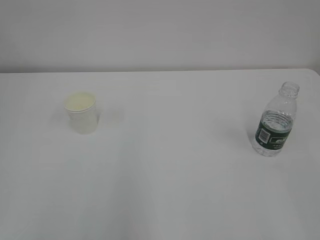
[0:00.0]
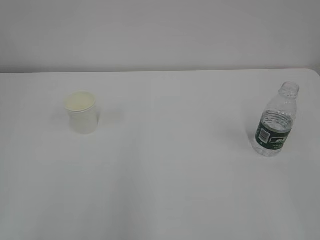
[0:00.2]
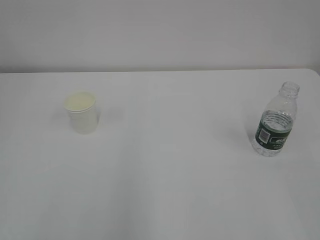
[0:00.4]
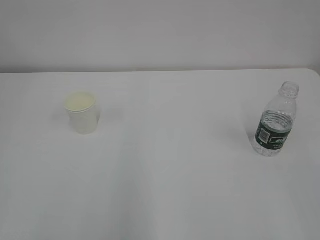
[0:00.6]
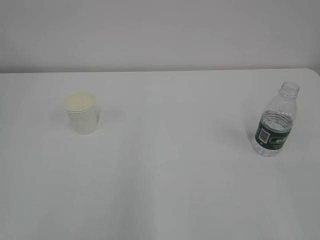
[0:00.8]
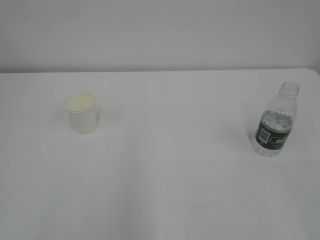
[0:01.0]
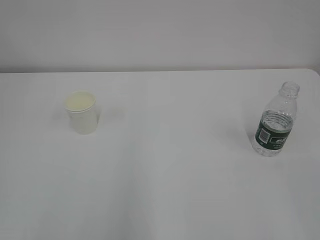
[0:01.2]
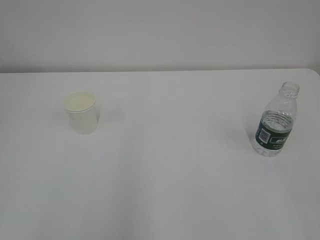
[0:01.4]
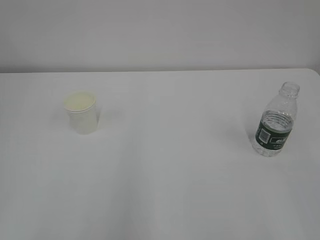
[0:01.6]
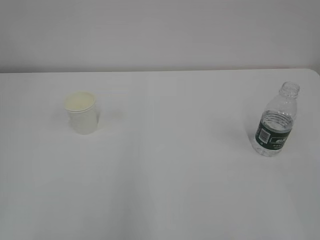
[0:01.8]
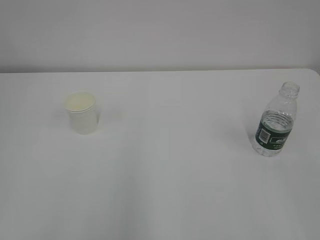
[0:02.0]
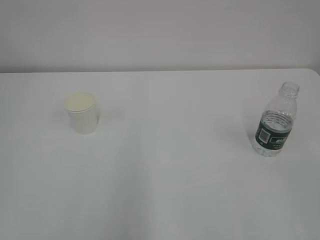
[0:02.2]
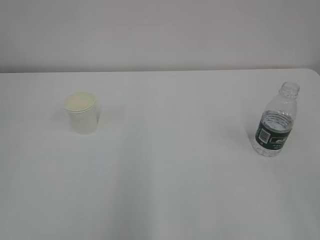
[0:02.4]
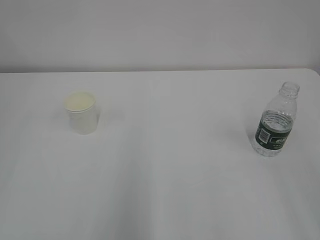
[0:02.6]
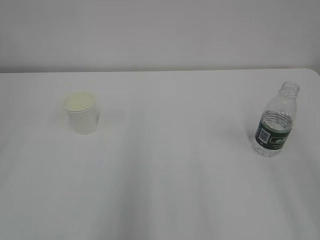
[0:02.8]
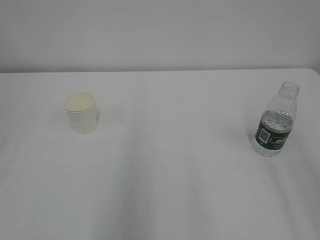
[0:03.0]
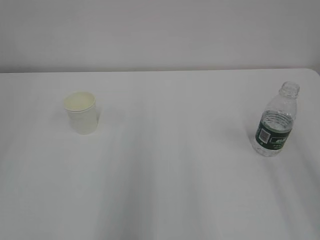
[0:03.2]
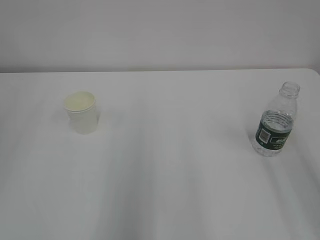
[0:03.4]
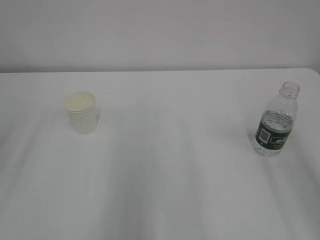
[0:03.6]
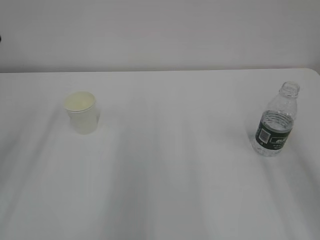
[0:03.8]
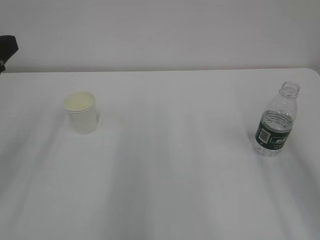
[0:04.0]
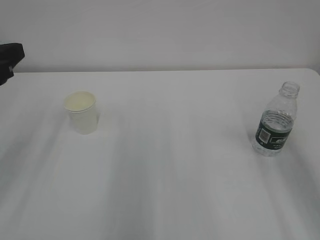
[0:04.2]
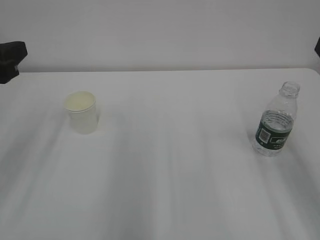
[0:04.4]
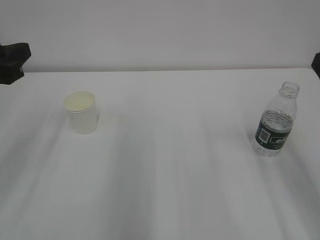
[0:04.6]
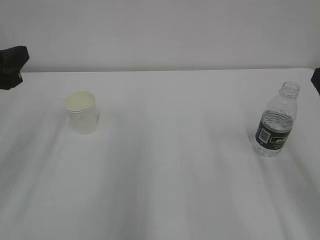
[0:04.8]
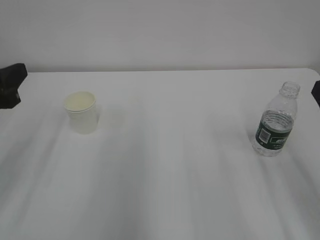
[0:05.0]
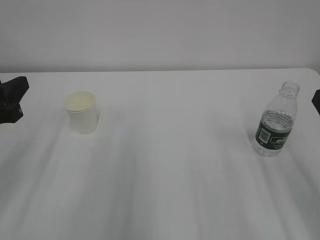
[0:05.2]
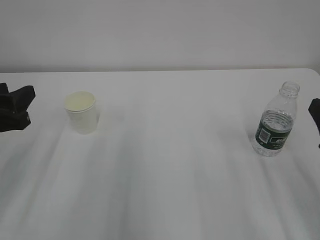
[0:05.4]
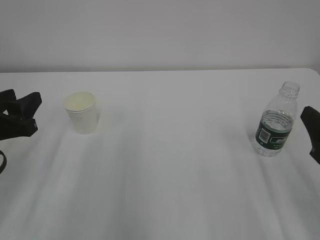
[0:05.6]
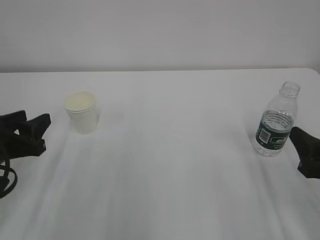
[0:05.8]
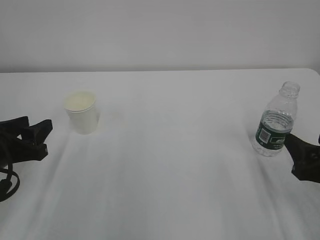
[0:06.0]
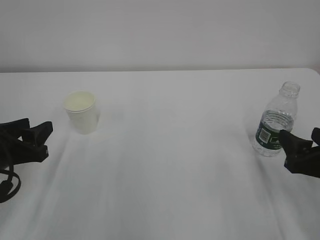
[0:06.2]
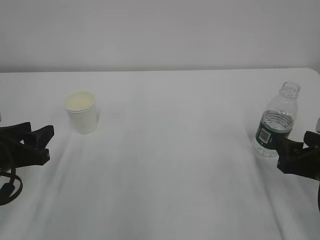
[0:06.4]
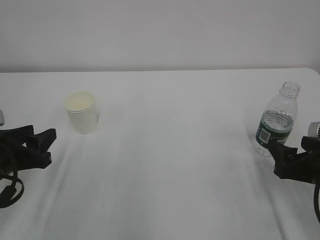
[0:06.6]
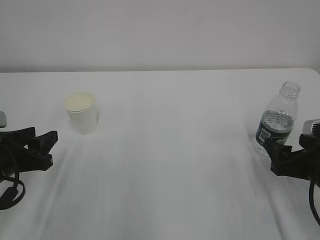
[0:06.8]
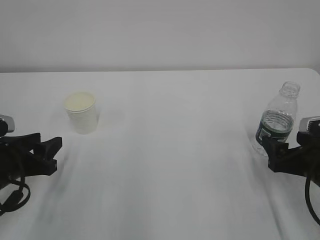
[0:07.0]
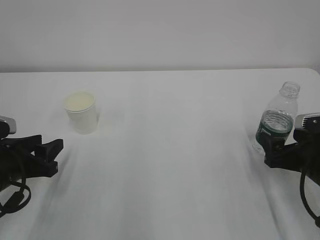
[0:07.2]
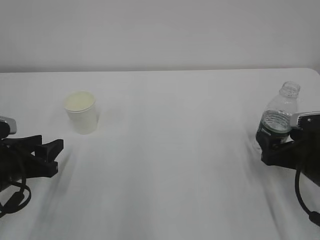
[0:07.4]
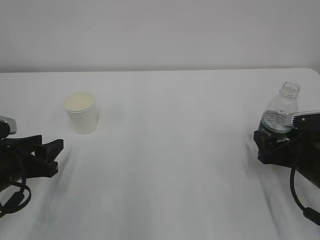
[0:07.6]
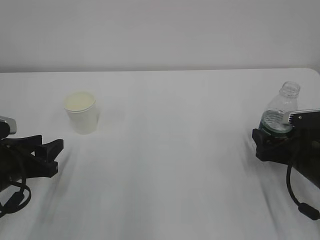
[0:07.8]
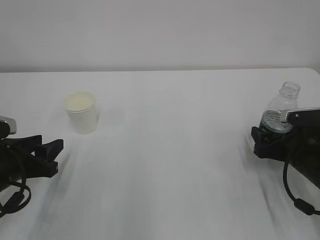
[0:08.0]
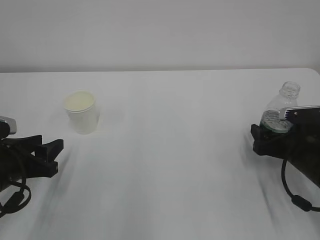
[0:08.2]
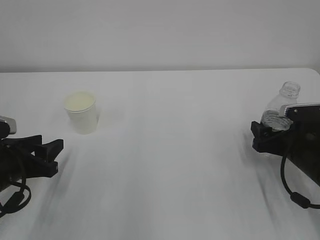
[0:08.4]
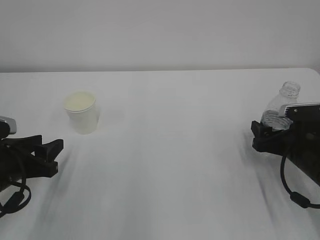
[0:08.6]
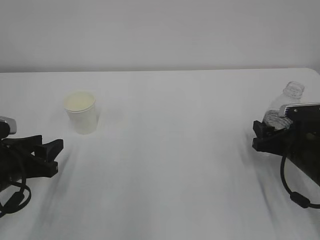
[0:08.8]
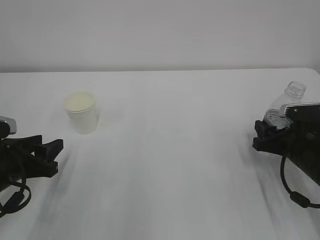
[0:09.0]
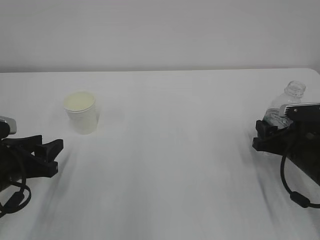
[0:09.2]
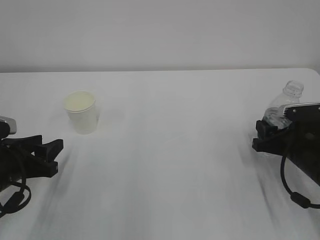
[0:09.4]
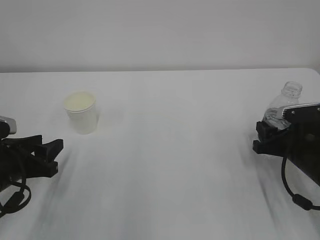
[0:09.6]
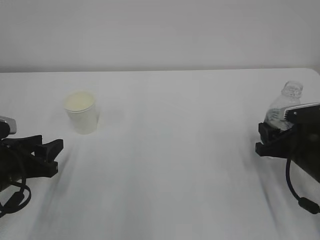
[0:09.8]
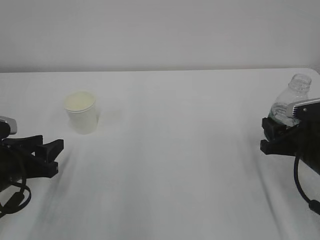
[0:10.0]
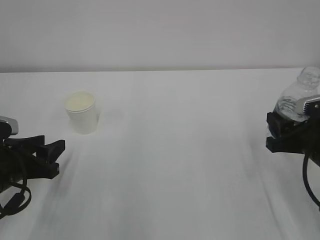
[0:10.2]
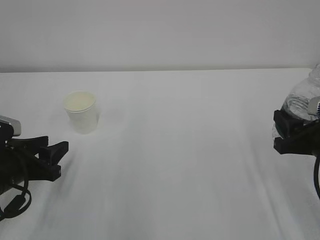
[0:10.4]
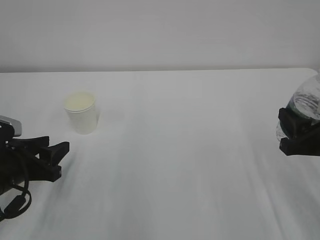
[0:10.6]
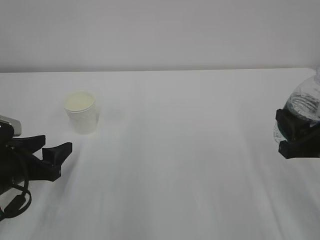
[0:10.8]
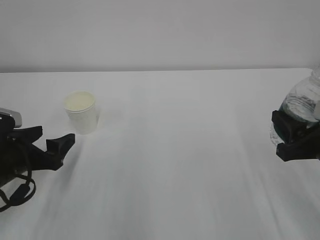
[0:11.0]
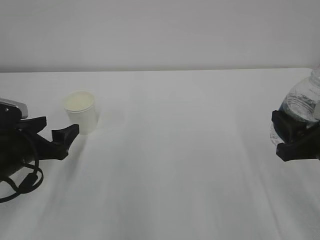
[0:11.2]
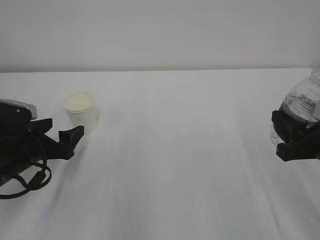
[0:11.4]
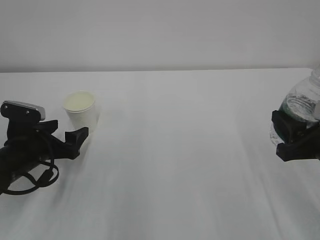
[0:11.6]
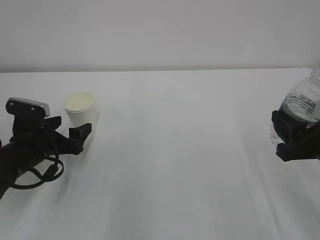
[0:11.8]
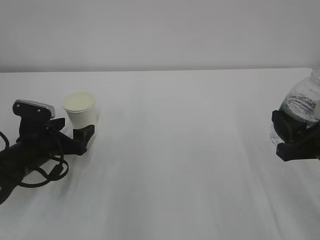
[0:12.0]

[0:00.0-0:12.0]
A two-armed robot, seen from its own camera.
0:03.0 to 0:04.4: The left gripper moves forward, downward and to the right, some 15 cm.
0:04.4 to 0:06.0: The grippers both shift downward by roughly 15 cm.
0:06.0 to 0:07.6: The right gripper travels forward and downward by some 10 cm.
0:07.6 to 0:09.0: The right gripper closes up.
0:09.0 to 0:10.4: The right gripper travels upward and backward by approximately 10 cm.
0:10.4 to 0:12.0: The left gripper heads forward, covering some 10 cm, and opens.

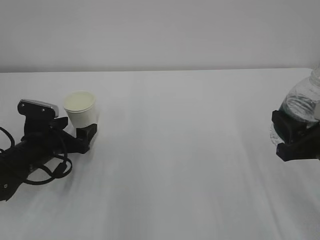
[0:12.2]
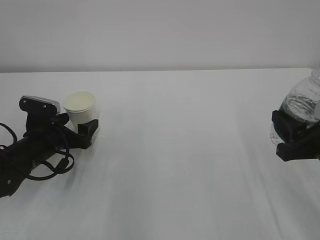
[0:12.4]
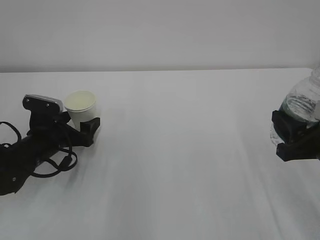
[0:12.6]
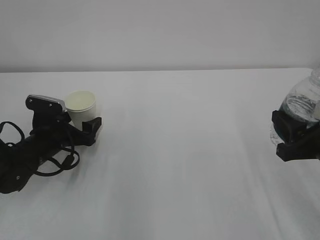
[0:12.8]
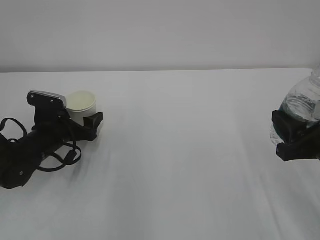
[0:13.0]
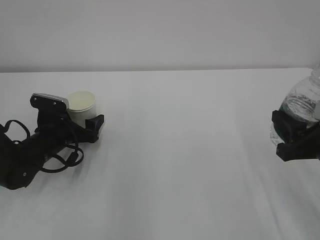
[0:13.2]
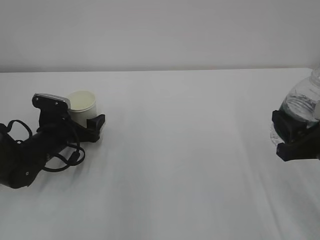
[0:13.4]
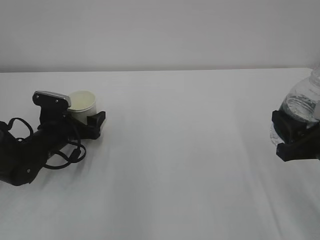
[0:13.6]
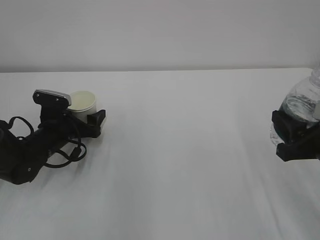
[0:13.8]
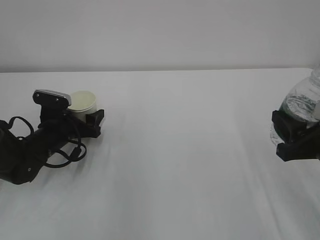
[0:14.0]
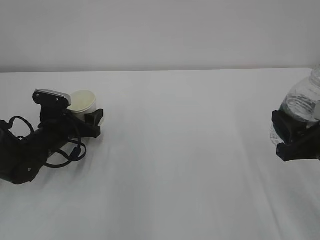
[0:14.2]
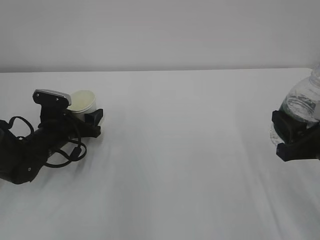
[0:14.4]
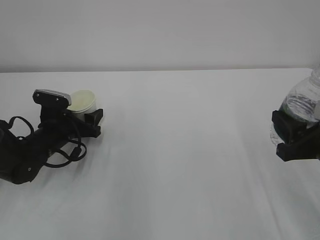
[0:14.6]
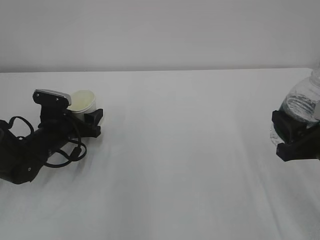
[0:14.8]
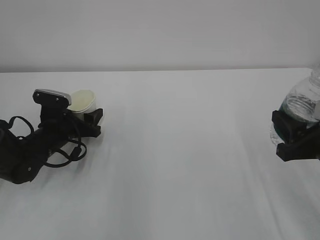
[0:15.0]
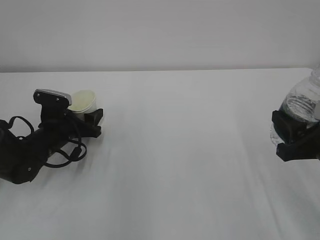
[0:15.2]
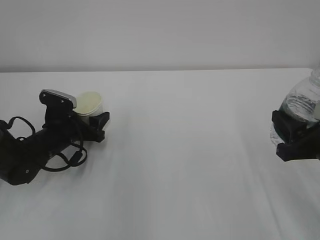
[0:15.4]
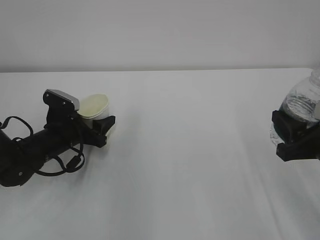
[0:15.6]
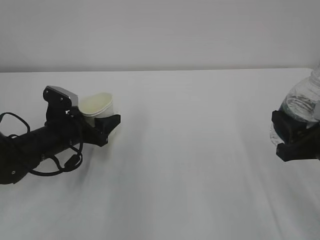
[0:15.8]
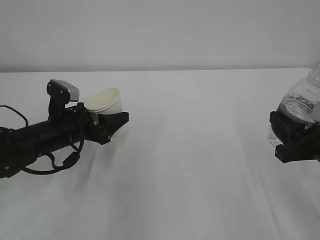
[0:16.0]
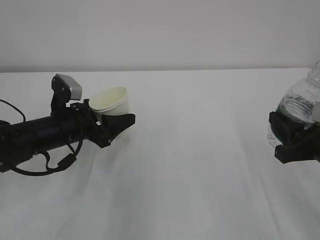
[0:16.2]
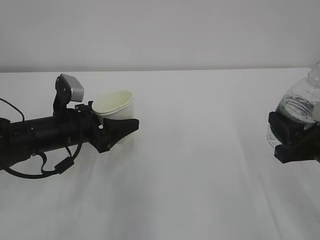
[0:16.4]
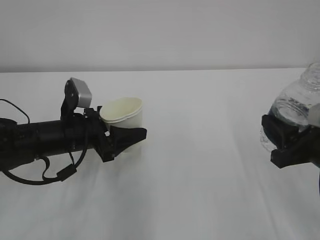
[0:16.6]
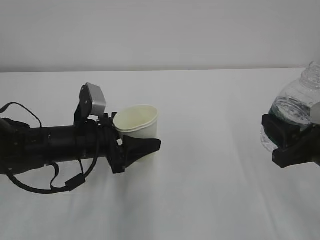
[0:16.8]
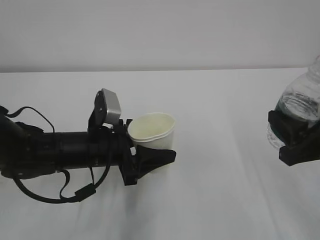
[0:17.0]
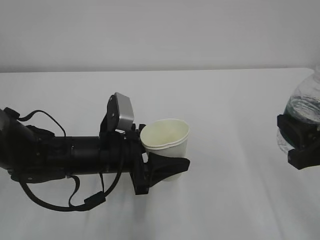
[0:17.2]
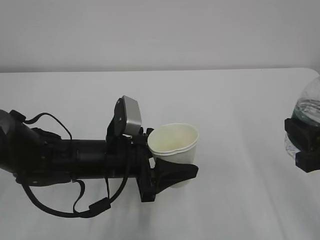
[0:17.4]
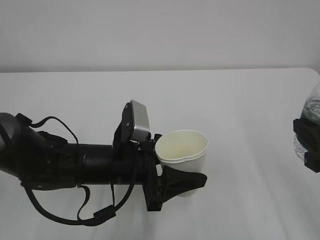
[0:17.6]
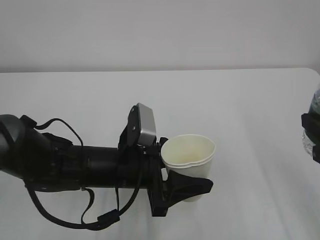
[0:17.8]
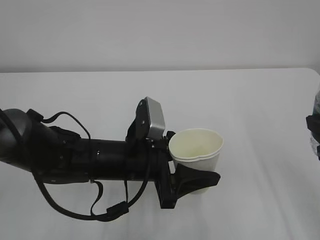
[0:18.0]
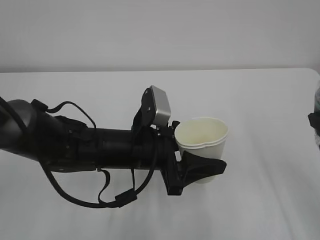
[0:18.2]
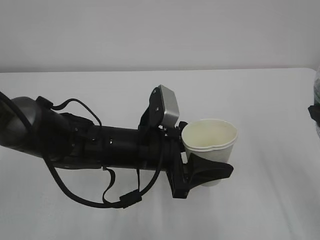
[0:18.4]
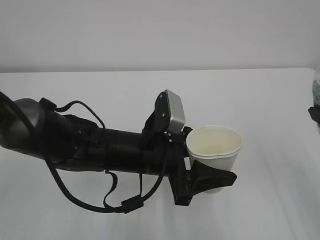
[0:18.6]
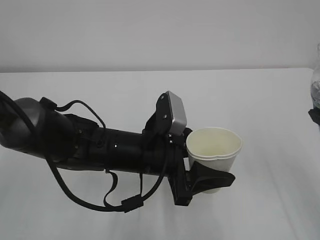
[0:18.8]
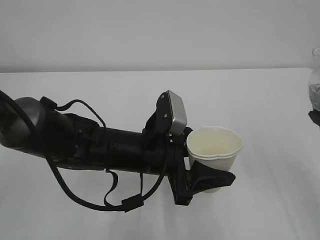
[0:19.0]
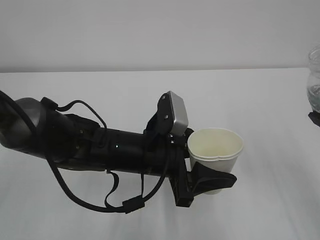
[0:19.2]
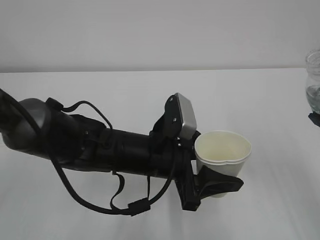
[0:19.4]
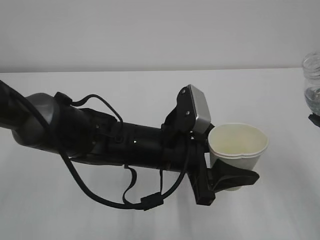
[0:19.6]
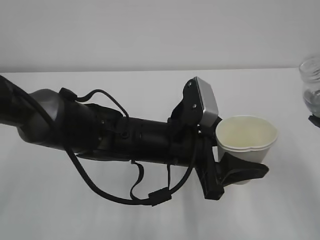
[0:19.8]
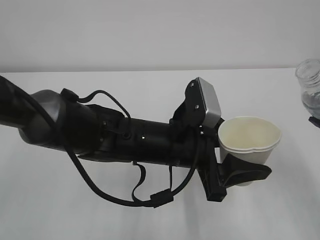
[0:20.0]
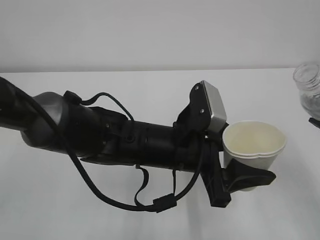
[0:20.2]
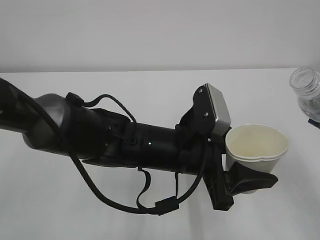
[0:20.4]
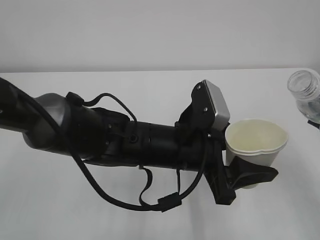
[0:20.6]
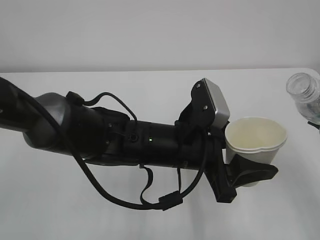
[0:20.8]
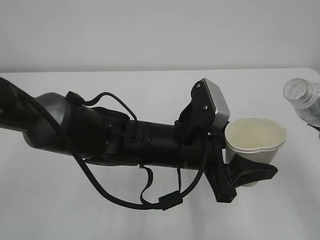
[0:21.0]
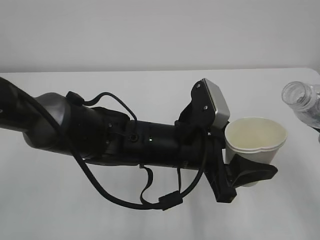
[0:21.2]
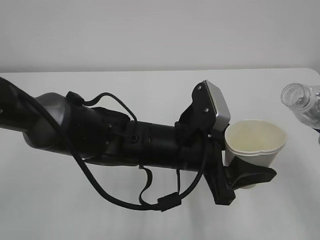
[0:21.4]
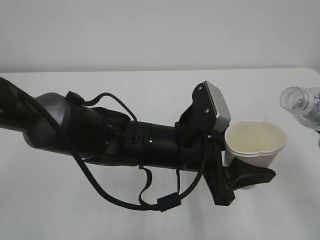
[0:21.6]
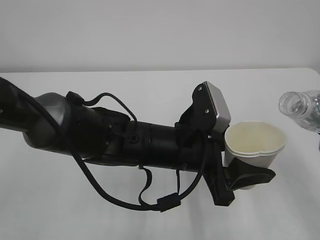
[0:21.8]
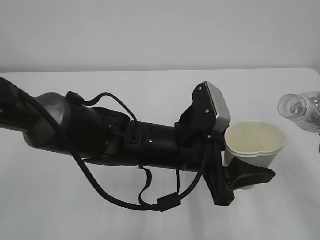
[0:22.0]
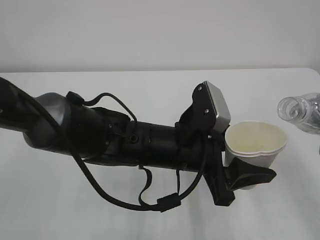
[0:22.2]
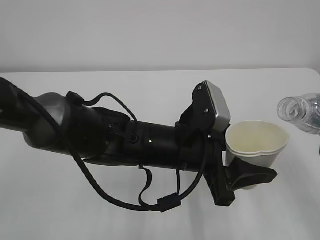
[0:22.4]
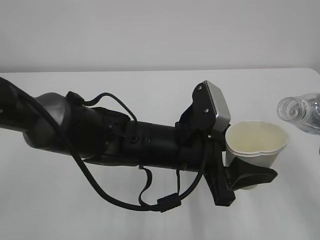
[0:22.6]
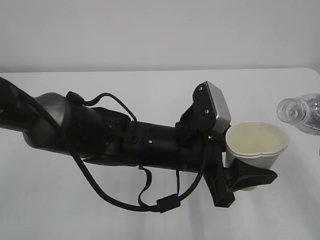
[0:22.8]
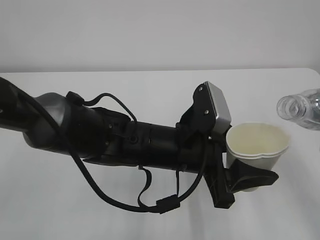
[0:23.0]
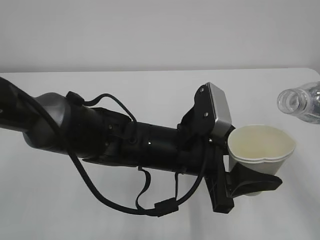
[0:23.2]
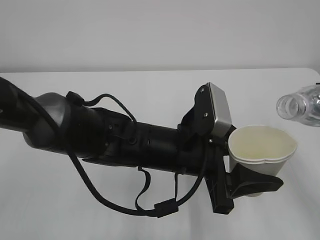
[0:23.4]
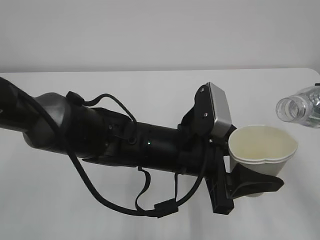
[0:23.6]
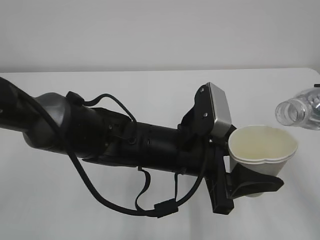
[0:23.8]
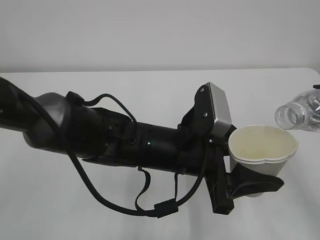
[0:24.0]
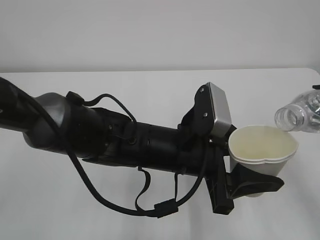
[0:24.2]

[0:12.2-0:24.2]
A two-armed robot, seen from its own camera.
0:12.2 to 0:13.8: The grippers move only a little.
0:15.2 to 0:16.6: The left gripper heads upward, backward and to the right, covering about 10 cm.
0:16.6 to 0:18.2: The left gripper heads to the right and backward, covering approximately 15 cm, while the right gripper heads upward, covering about 10 cm.
0:18.2 to 0:19.8: The left gripper shifts approximately 5 cm to the right.
0:19.8 to 0:21.2: The grippers stay close to where they were, moving slightly.
0:21.2 to 0:22.6: The grippers move only a little.
0:22.6 to 0:24.2: There are only small adjustments of the grippers.
